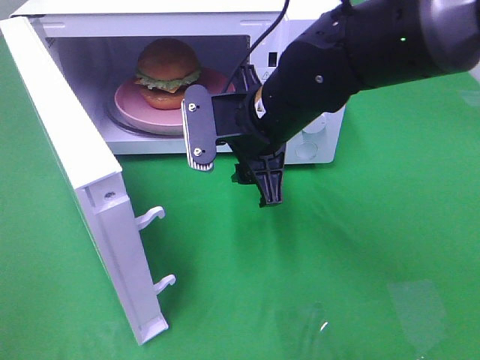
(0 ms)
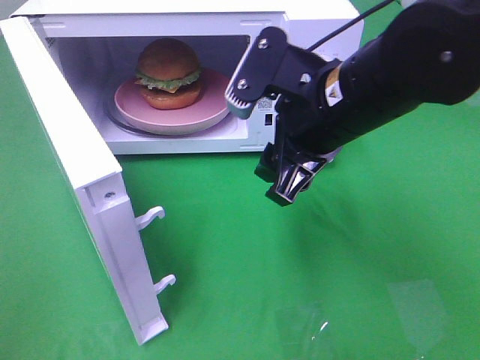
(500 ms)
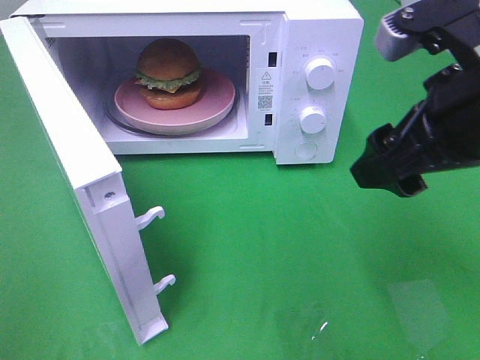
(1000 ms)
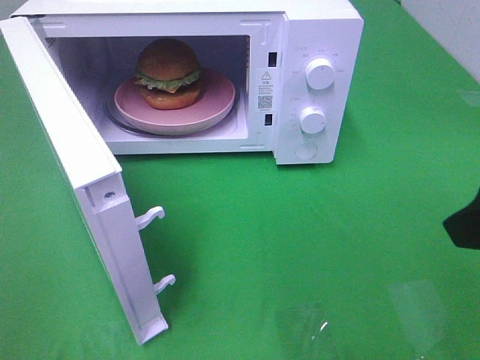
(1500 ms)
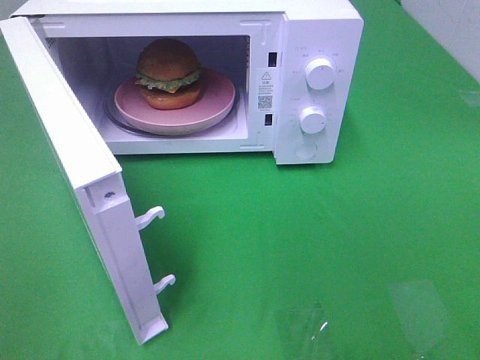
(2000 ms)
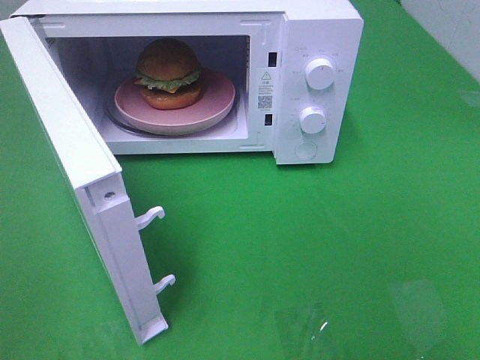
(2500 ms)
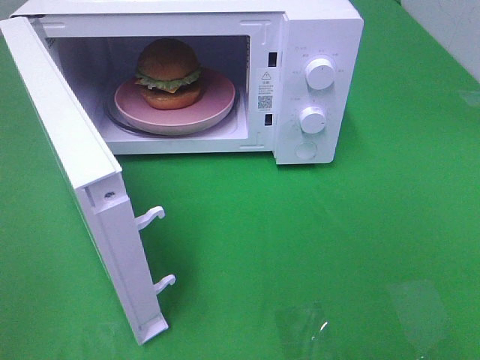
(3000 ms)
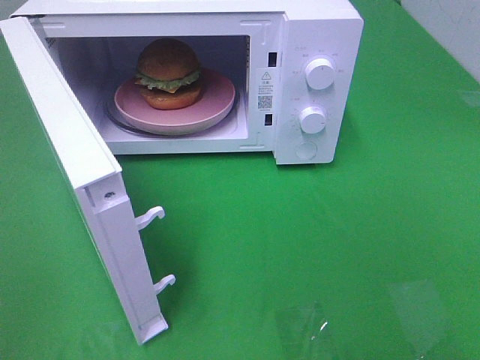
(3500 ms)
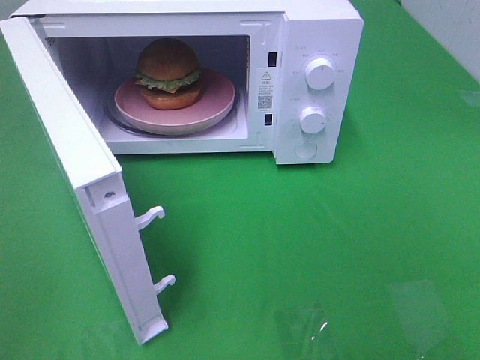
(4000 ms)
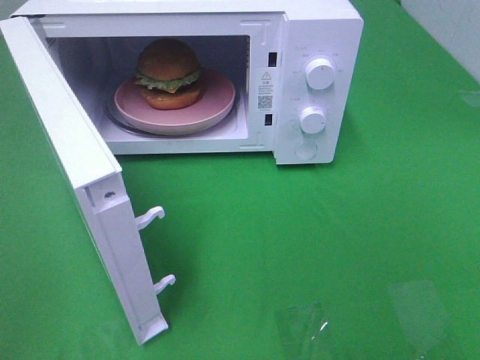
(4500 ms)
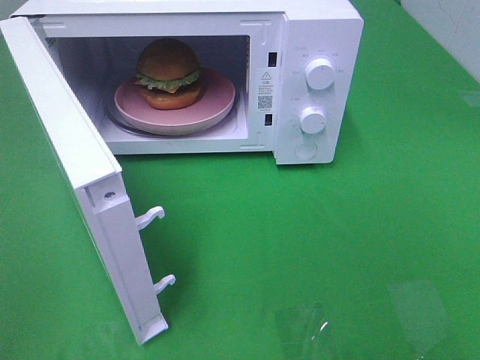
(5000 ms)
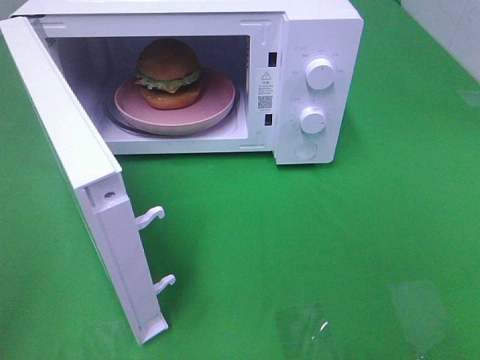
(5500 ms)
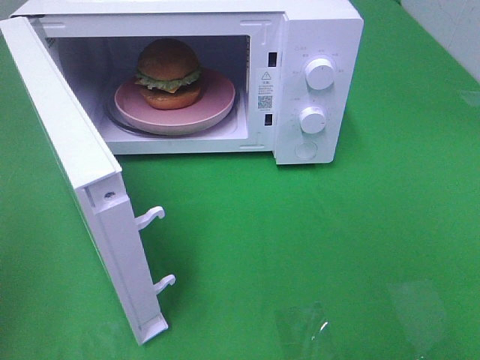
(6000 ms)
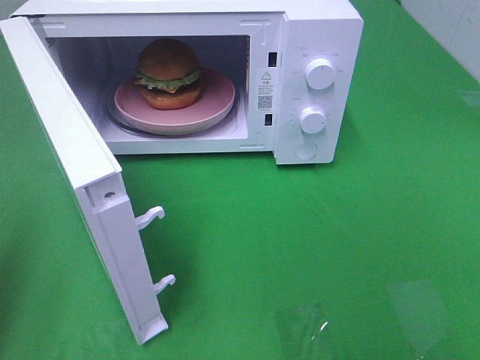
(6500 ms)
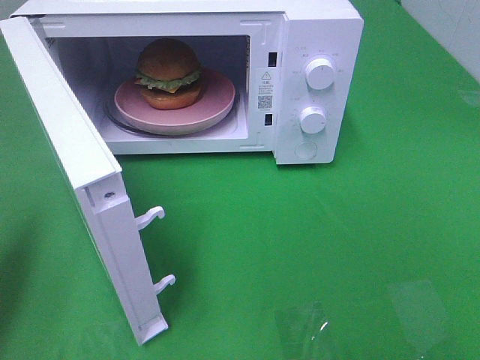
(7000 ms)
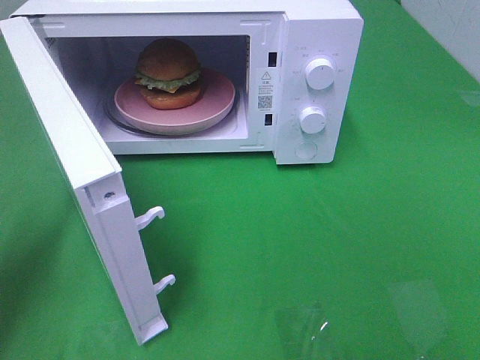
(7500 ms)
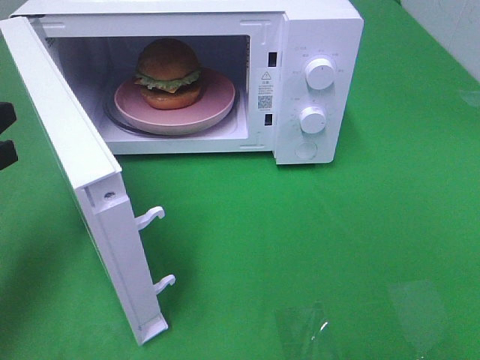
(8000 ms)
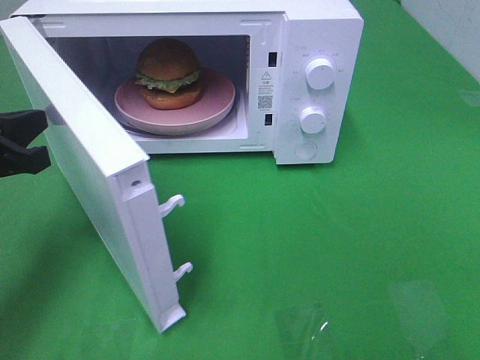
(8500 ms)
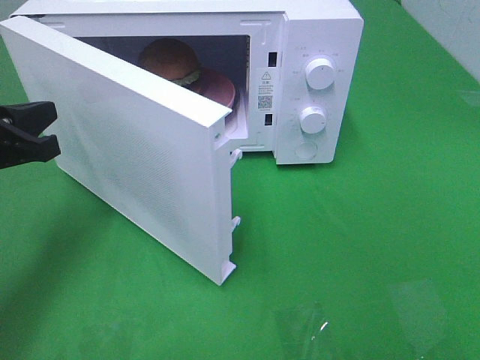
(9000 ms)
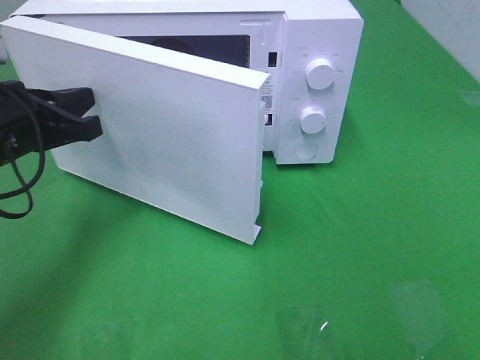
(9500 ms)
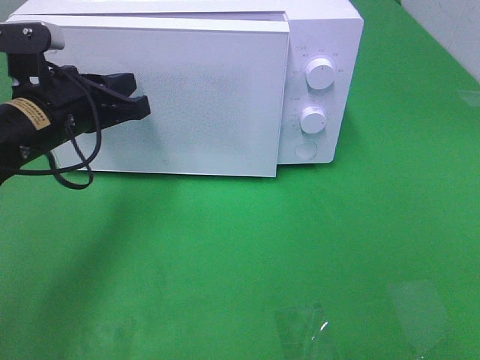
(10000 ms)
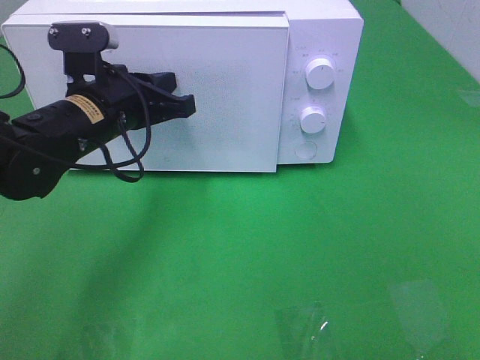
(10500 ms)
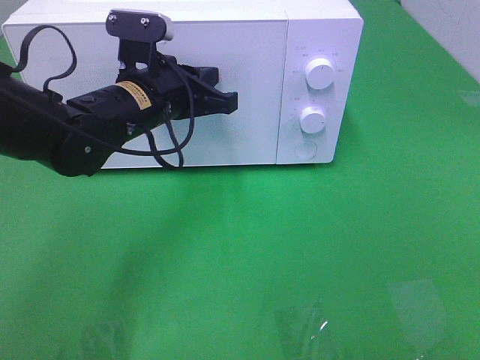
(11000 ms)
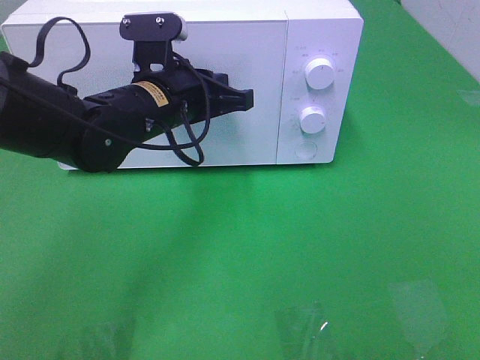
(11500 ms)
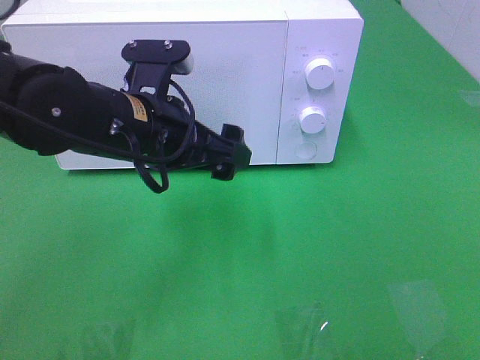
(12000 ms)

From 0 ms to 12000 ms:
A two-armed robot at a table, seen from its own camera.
Task of the whole recording: Heat the burger.
Step, from 0 ms to 11500 ms: Left hand: close the microwave door.
From 0 ms to 2000 ms: The right gripper shifts roughly 35 cm backward, to the right and upward.
From 6000 ms to 8000 ms: The left gripper goes some 20 cm forward and downward.
From 8000 ms to 10000 ms: The left gripper moves to the right and forward, roughly 15 cm.
From 10000 ms to 12000 ms: The left gripper heads to the right, covering approximately 10 cm, and opens.

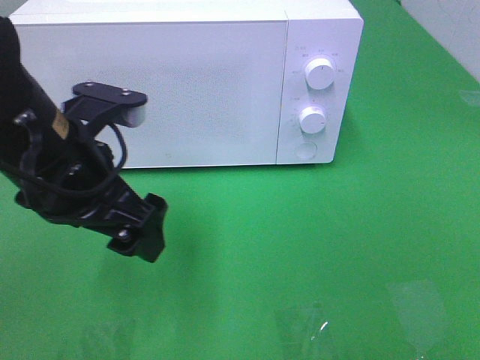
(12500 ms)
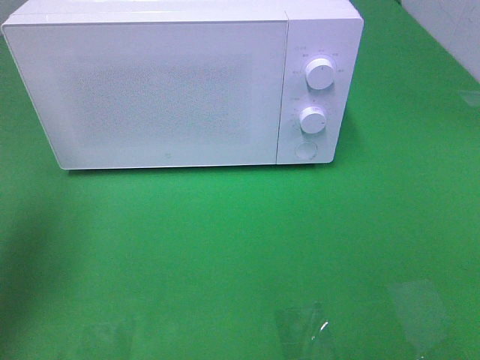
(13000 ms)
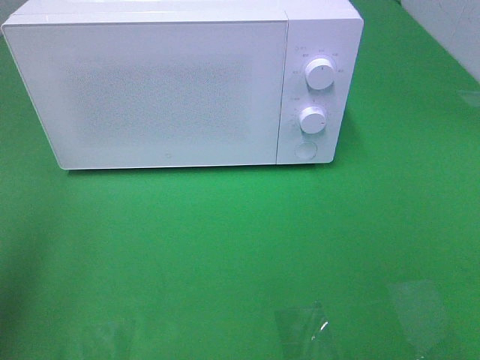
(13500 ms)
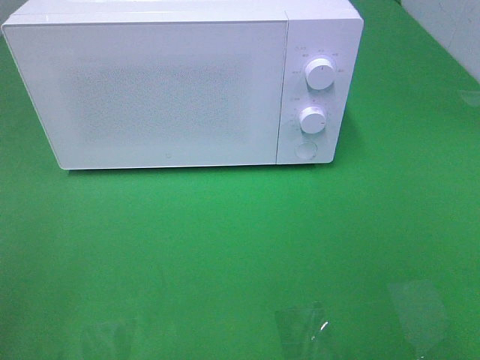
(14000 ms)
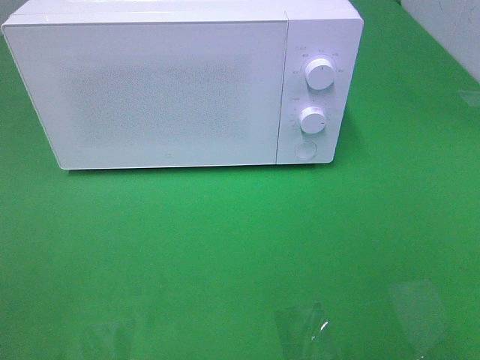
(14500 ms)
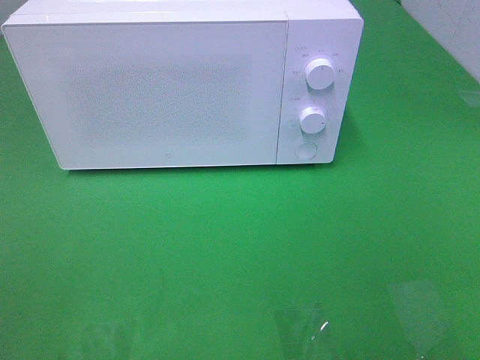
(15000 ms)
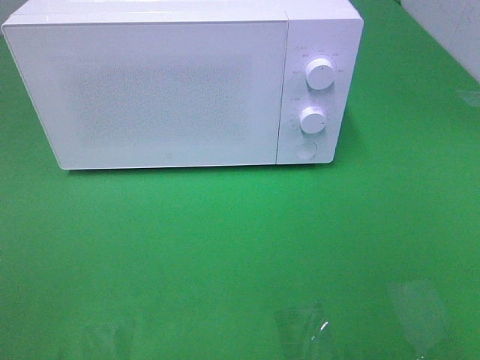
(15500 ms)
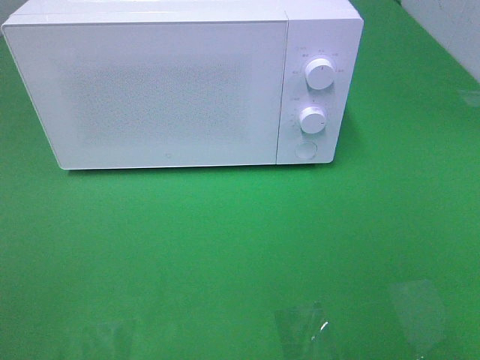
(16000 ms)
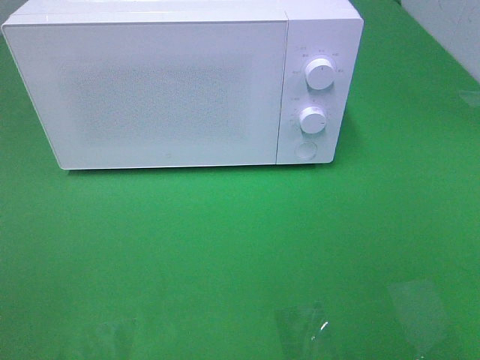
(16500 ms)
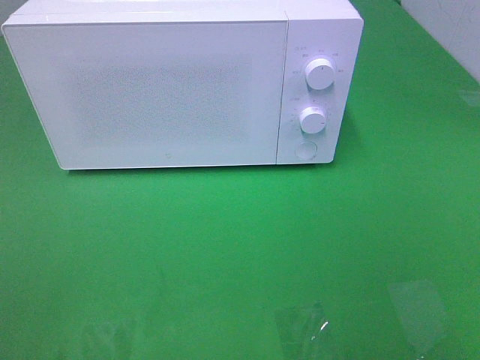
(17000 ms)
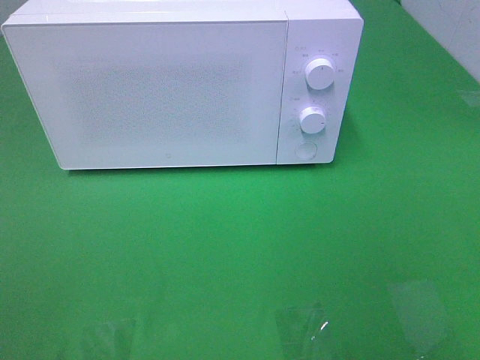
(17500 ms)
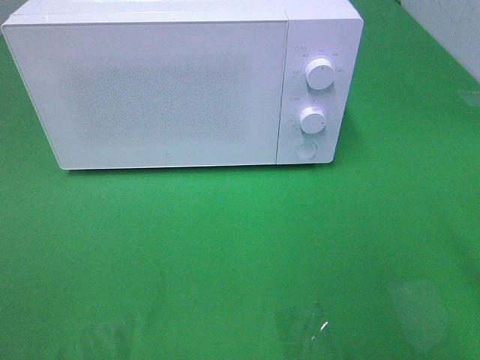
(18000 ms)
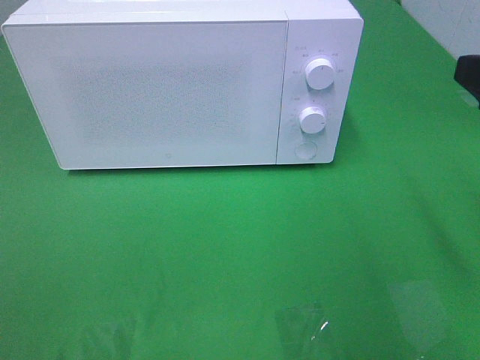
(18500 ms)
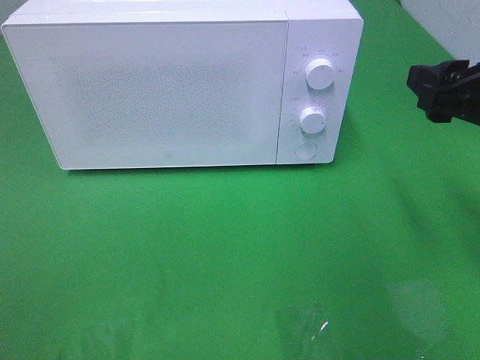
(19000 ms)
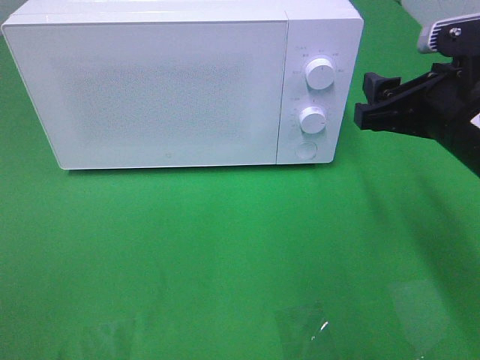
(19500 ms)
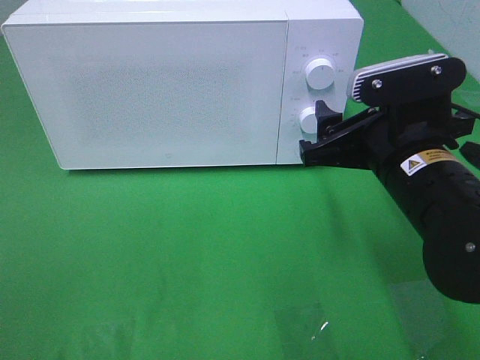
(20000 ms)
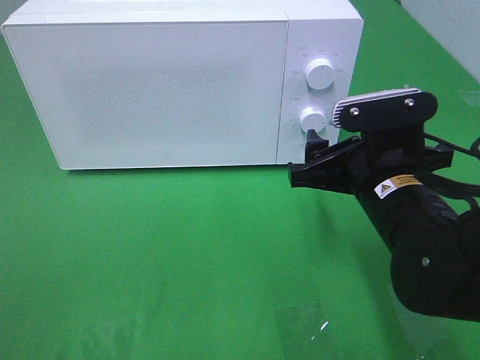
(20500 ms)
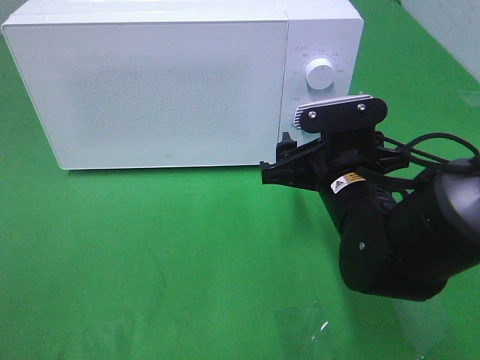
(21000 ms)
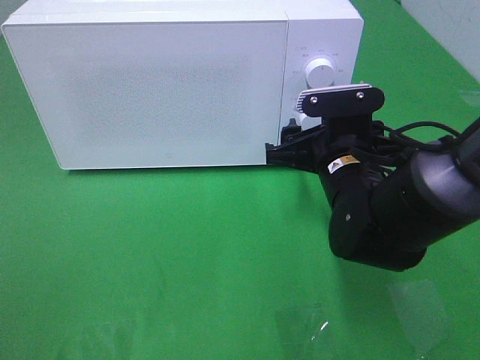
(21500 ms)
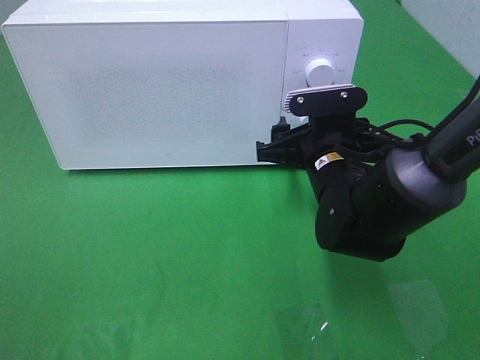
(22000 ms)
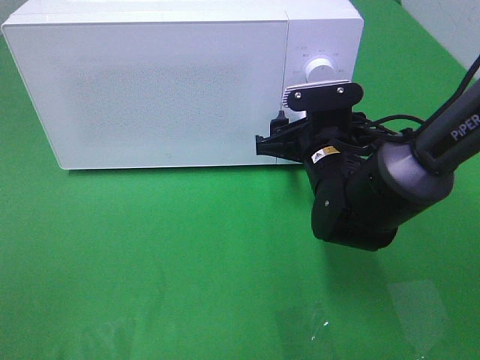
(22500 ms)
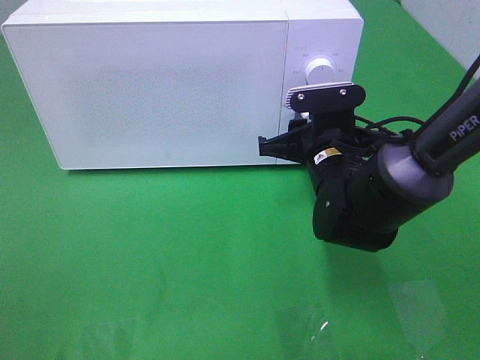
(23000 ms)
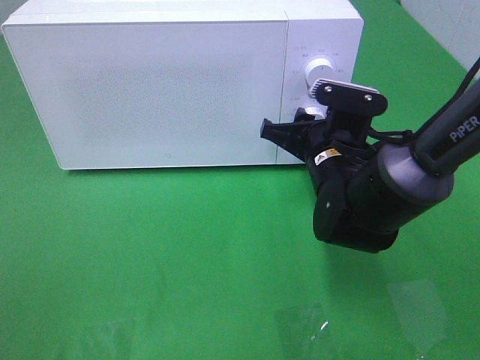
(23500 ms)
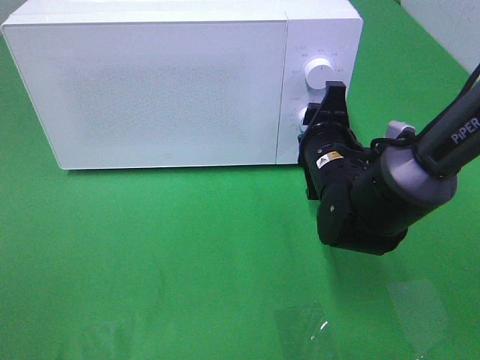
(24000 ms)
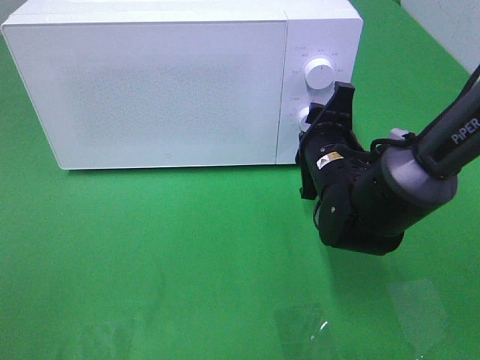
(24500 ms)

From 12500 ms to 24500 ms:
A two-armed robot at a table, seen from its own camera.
Task of the whole recording: Heat the burger.
From 12500 ms to 14500 ms: The left gripper moves backward and to the left, some 30 cm.
From 14500 ms to 16500 ms: Neither gripper changes place.
From 18500 ms to 20500 ms: The right gripper heads downward, to the left and forward, covering about 20 cm.
From 20500 ms to 22500 ms: The right gripper travels forward by some 10 cm.
From 22500 ms to 24500 ms: The right gripper closes.

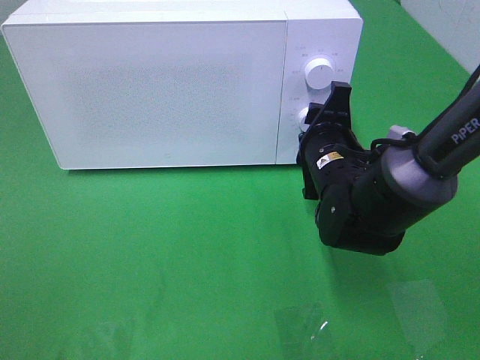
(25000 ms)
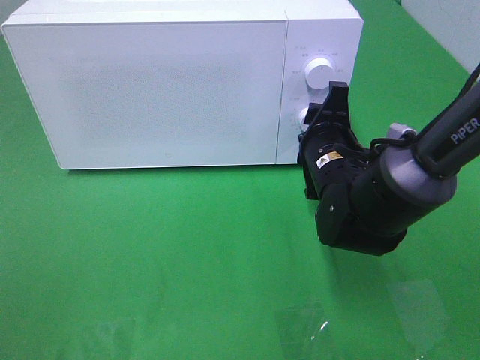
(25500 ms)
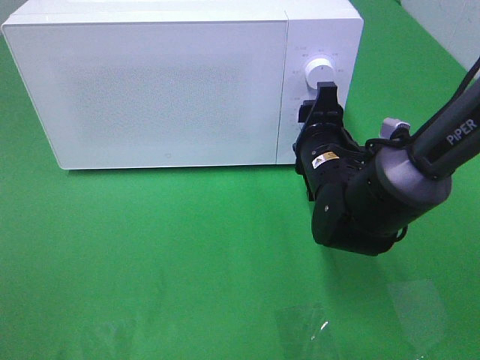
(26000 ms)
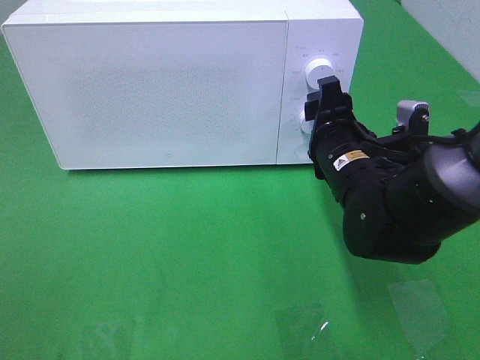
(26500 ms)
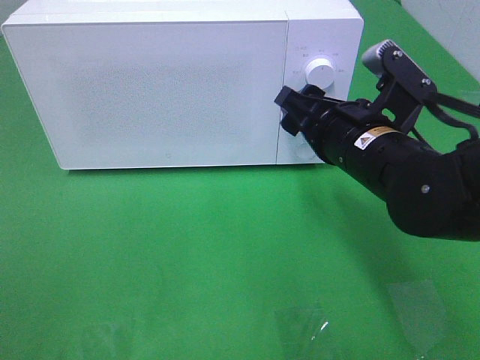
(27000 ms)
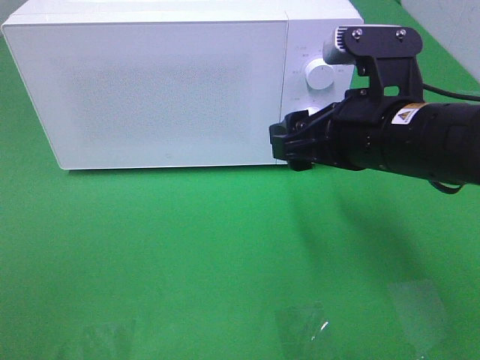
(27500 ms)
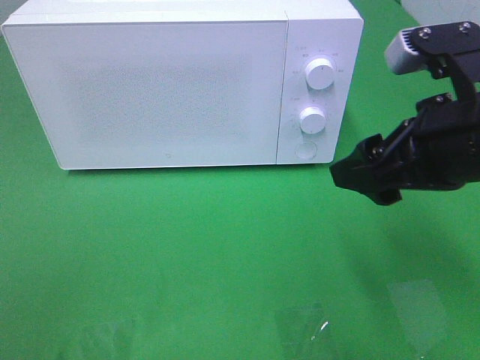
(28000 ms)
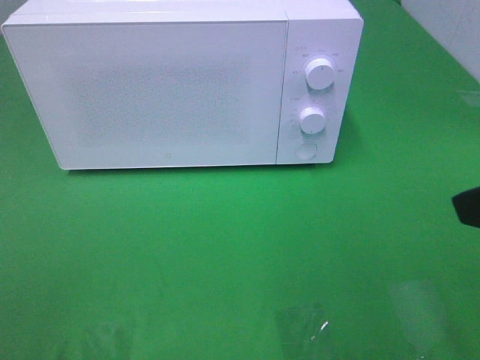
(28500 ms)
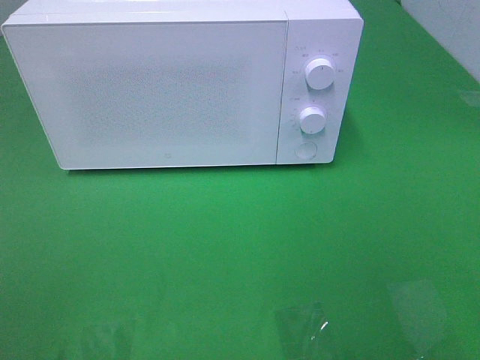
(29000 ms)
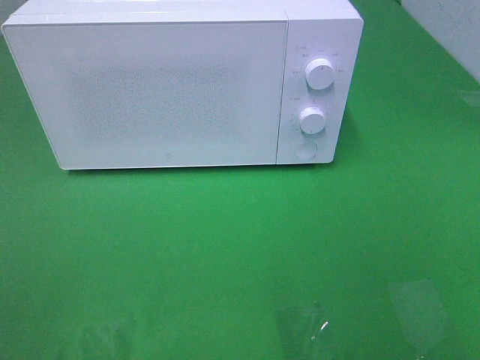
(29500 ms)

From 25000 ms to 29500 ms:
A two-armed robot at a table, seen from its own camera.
Task of the whole recording: Heat the burger.
From 25000 ms to 27000 ms: The right gripper is displaced upward and backward by about 10 cm.
From 27000 ms to 29500 ms: The right gripper goes about 30 cm backward, to the right and upward.
